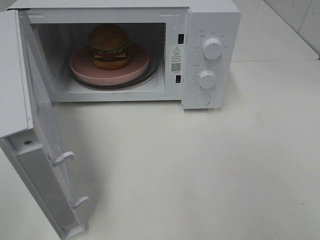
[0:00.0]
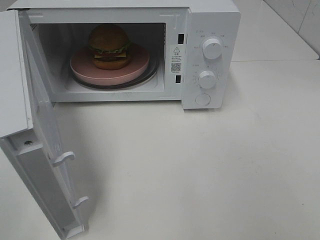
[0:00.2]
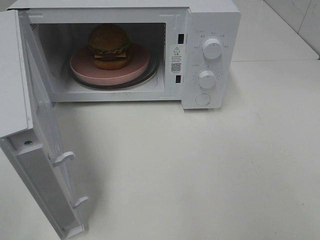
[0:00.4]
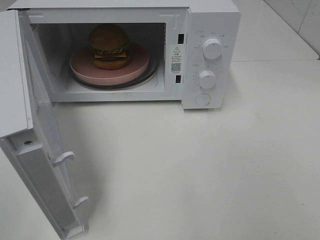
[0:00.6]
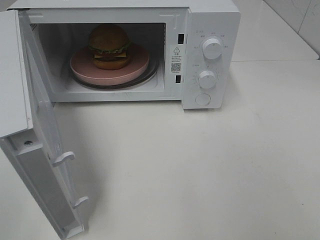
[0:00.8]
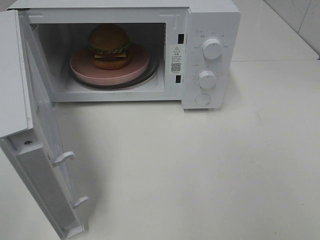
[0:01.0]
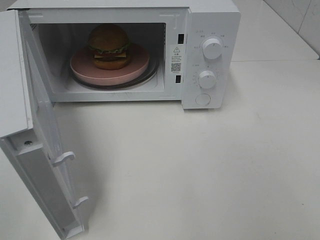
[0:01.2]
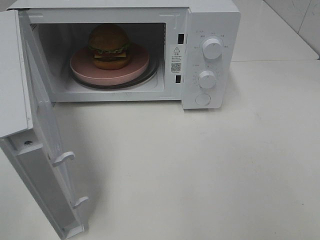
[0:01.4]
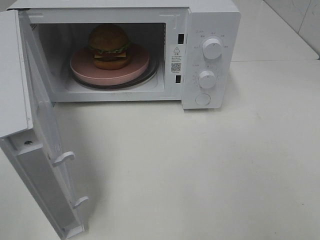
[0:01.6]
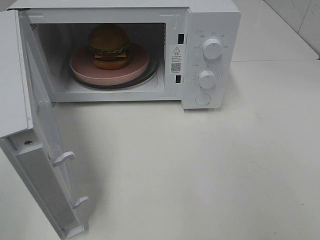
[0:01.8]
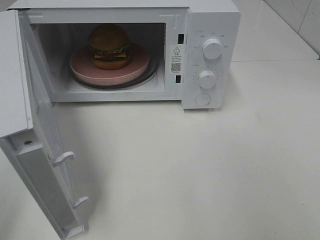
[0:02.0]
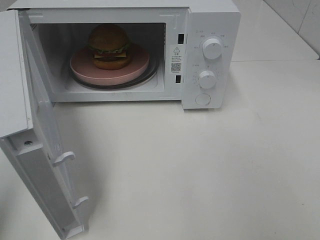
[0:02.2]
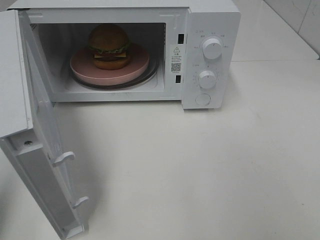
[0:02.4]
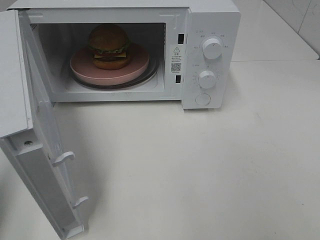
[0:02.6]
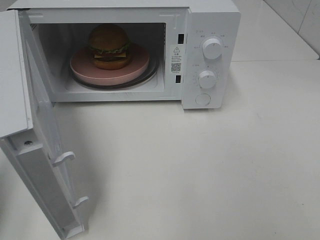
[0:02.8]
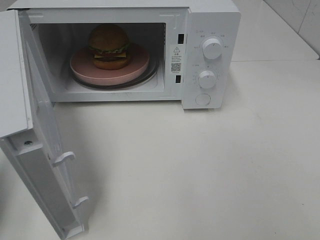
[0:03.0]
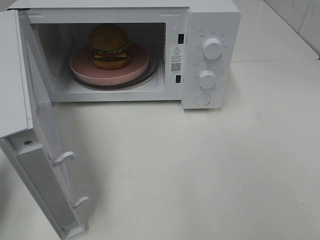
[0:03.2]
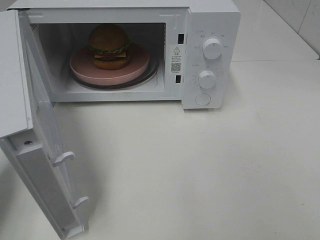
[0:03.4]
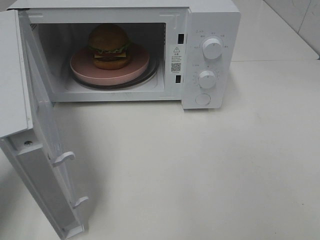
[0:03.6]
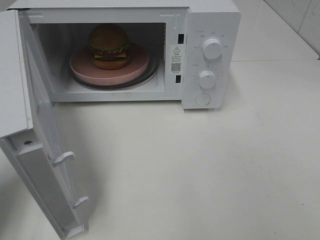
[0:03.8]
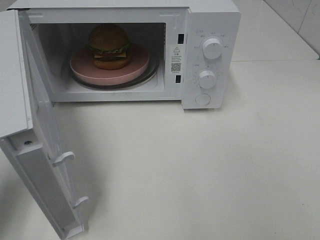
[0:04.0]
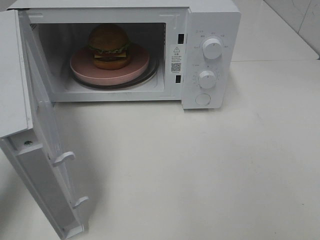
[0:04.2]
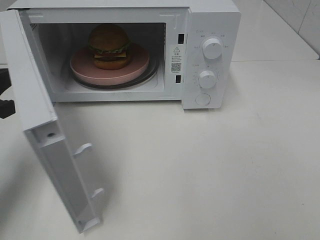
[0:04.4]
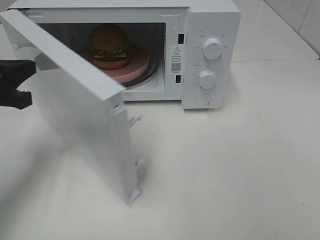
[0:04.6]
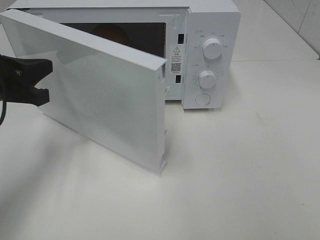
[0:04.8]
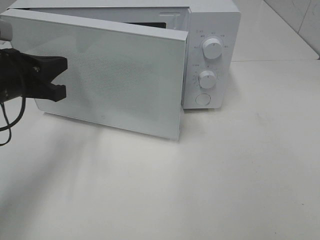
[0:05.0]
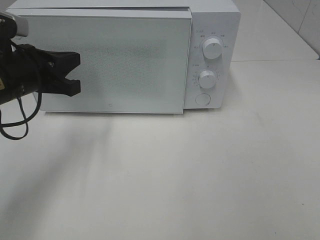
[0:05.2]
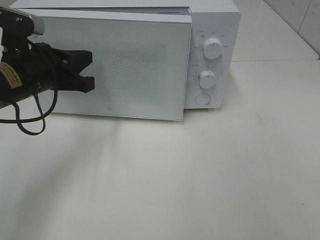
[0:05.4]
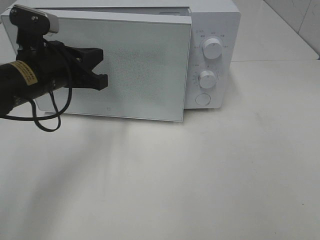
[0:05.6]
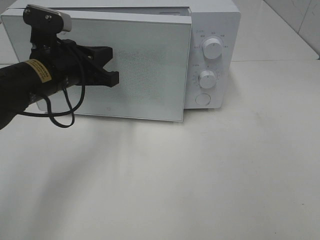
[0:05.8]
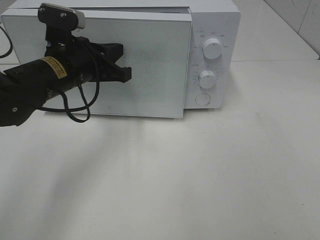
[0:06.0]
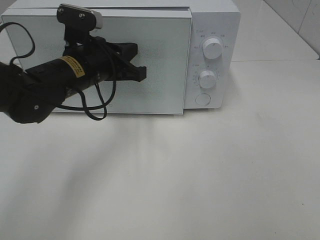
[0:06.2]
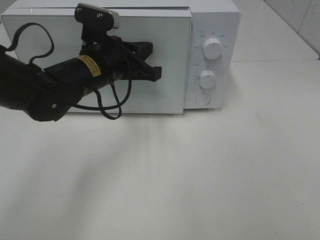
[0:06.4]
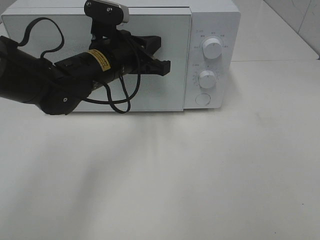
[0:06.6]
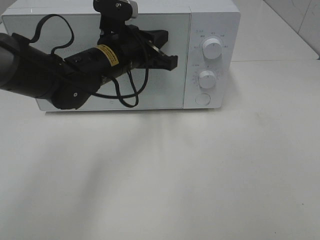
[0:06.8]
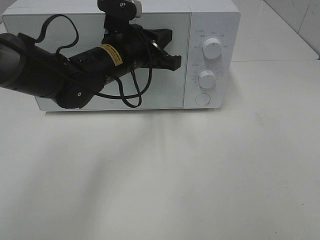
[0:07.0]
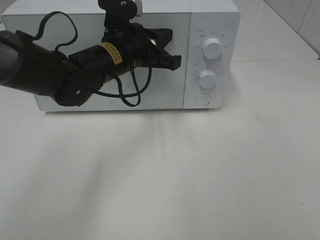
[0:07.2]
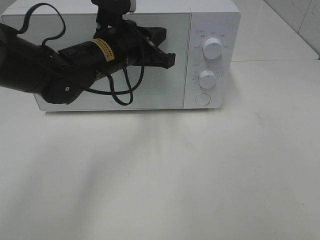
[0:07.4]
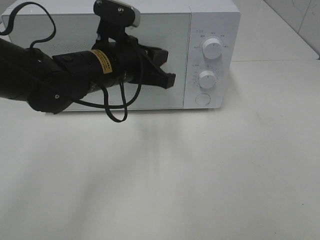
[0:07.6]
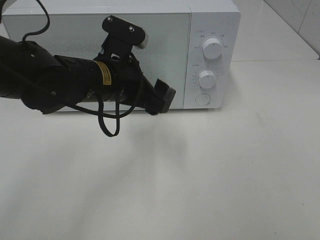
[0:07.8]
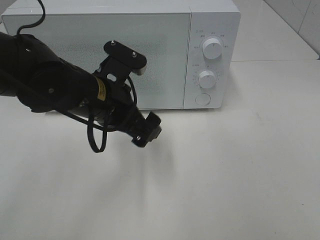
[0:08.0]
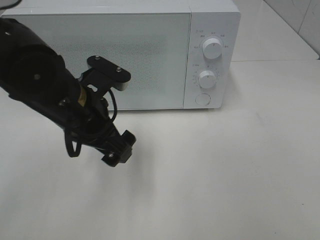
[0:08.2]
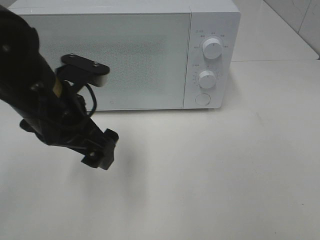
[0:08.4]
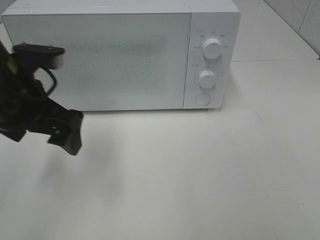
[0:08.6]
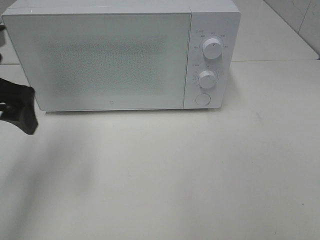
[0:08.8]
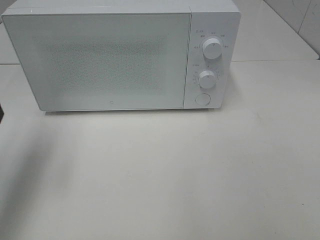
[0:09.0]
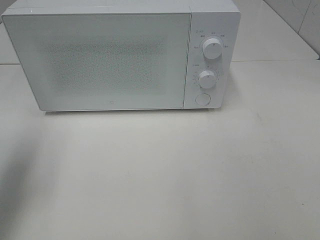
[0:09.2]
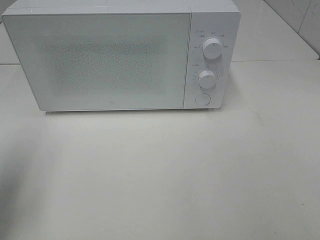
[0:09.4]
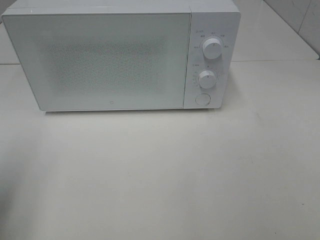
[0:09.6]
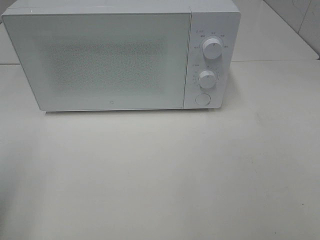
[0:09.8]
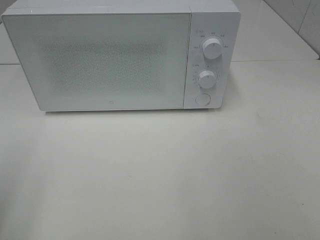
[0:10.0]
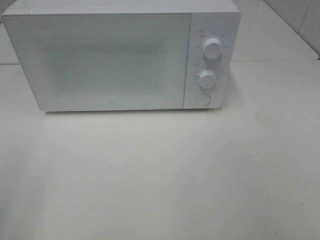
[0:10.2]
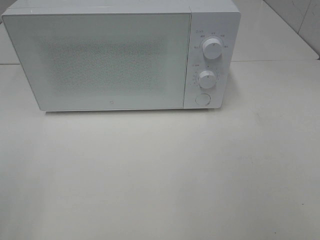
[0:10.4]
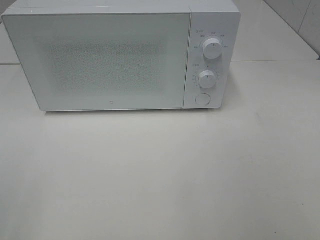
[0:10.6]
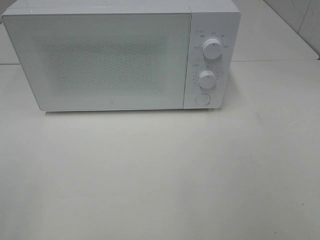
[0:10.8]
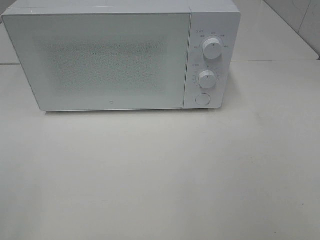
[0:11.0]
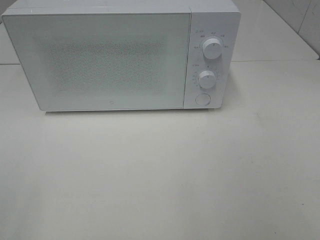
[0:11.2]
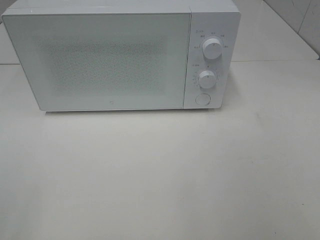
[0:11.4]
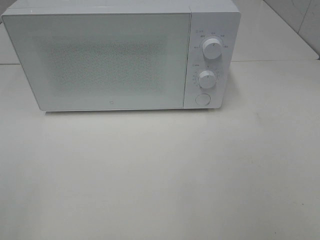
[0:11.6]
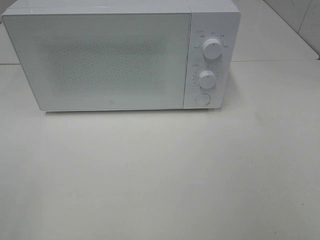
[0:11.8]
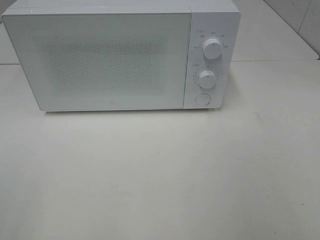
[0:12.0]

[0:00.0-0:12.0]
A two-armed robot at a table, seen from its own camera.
Task of the whole recording: Heat the burger.
Step, 0:00.0 to 0:07.4: Left hand: close the microwave door.
0:01.6 to 0:03.0: The left gripper goes some 15 cm forward and downward, and closes its fingers.
0:03.0 to 0:04.4: The left gripper moves forward, roughly 10 cm.
0:04.4 to 0:06.0: The left gripper shifts approximately 20 cm to the right and forward.
0:06.0 to 0:07.6: The left gripper heads to the right, covering approximately 5 cm.
0:07.6 to 0:09.0: The left gripper heads to the left, covering about 20 cm, and opens up.
0:09.0 to 0:10.4: The left gripper is displaced backward by roughly 20 cm.

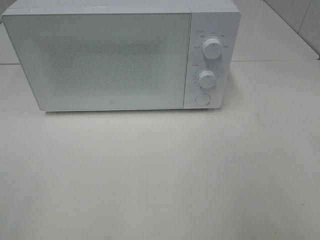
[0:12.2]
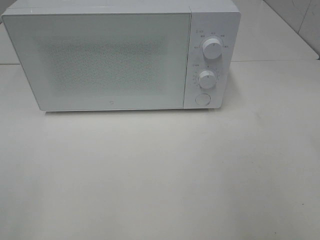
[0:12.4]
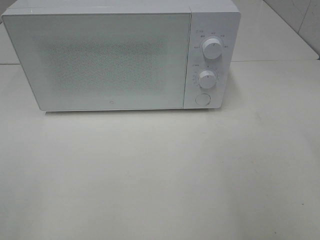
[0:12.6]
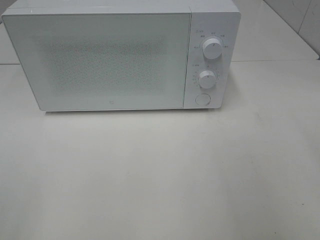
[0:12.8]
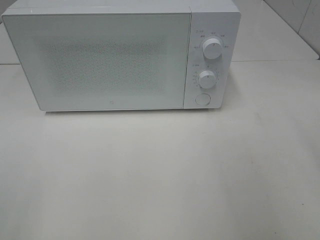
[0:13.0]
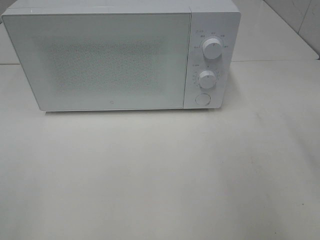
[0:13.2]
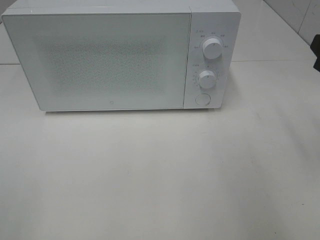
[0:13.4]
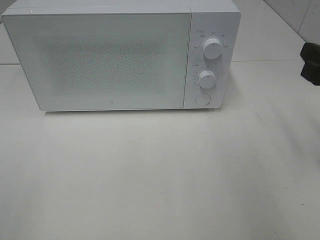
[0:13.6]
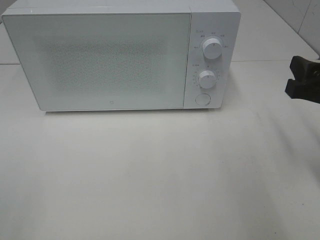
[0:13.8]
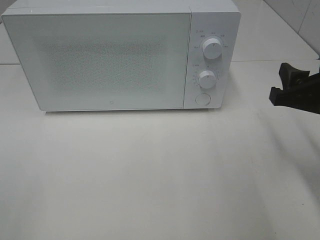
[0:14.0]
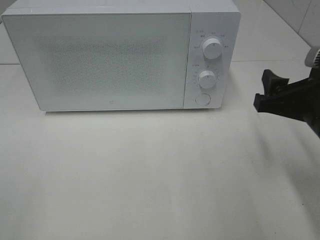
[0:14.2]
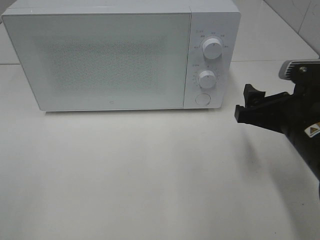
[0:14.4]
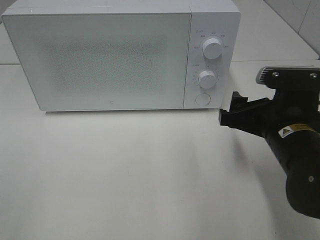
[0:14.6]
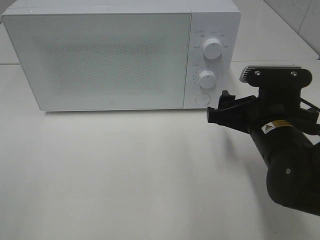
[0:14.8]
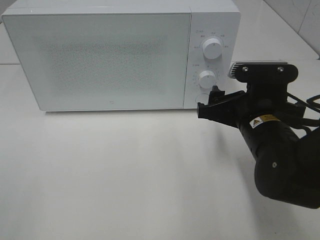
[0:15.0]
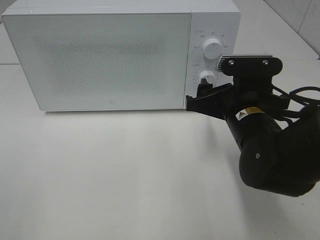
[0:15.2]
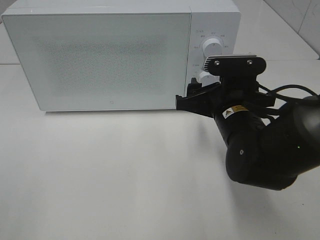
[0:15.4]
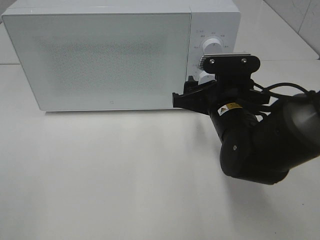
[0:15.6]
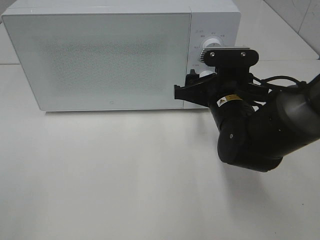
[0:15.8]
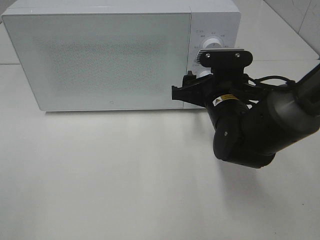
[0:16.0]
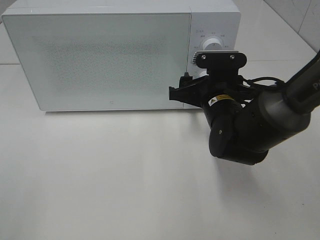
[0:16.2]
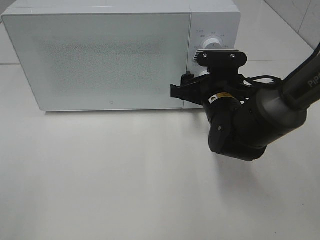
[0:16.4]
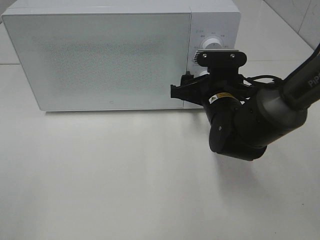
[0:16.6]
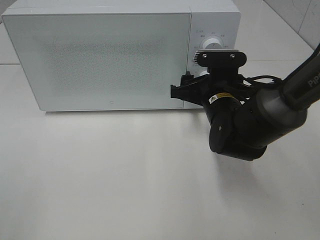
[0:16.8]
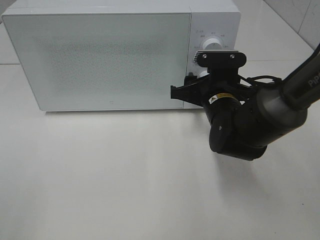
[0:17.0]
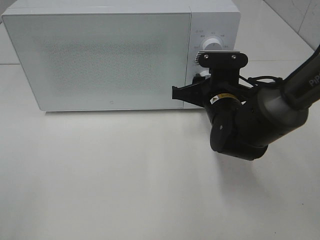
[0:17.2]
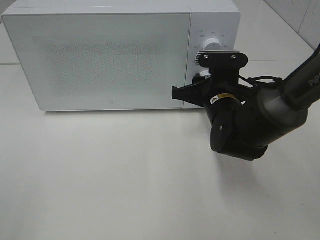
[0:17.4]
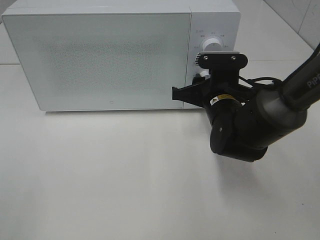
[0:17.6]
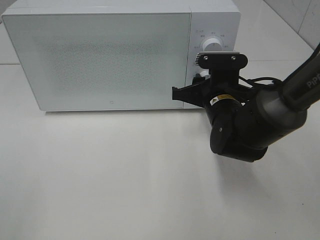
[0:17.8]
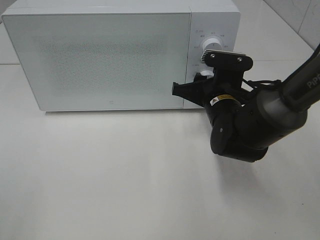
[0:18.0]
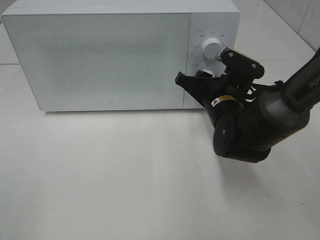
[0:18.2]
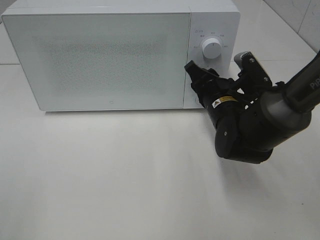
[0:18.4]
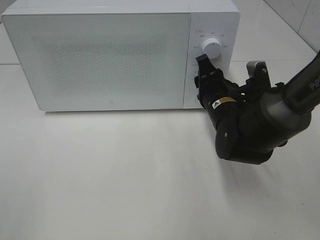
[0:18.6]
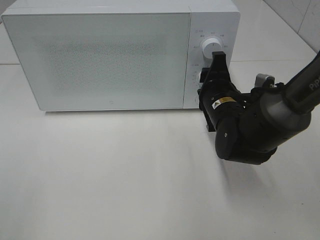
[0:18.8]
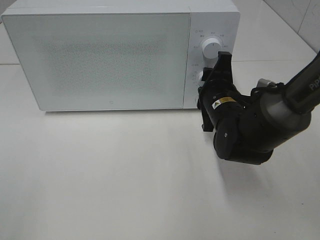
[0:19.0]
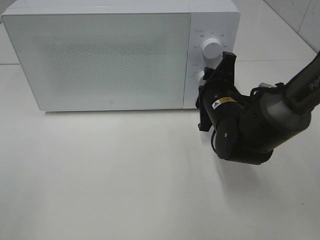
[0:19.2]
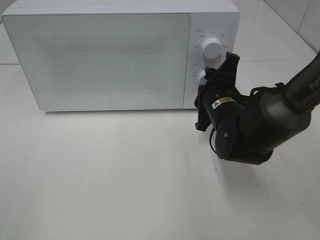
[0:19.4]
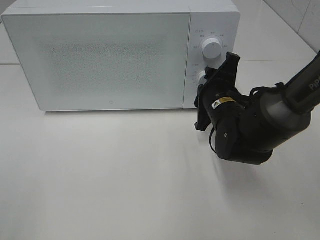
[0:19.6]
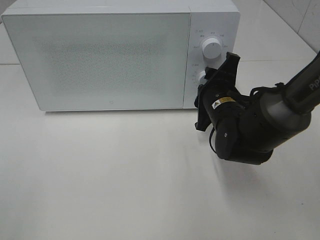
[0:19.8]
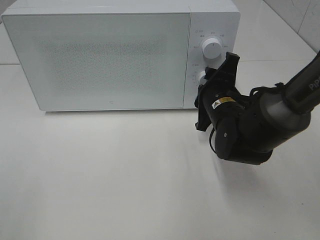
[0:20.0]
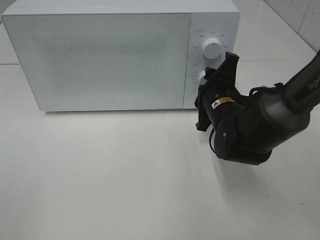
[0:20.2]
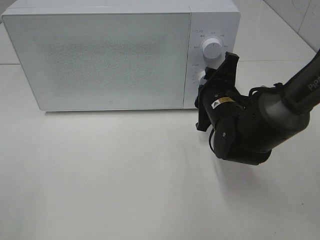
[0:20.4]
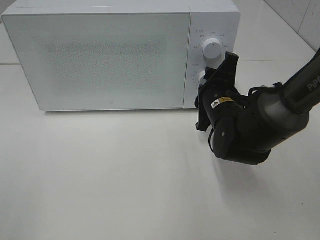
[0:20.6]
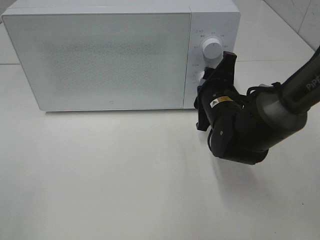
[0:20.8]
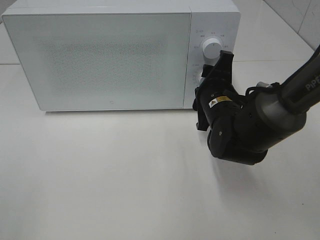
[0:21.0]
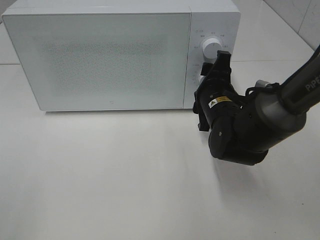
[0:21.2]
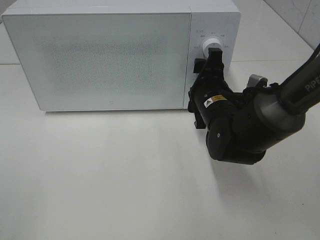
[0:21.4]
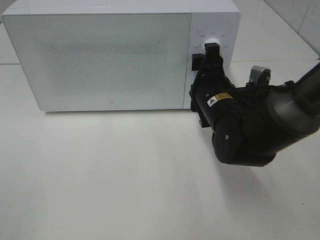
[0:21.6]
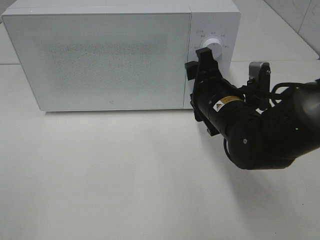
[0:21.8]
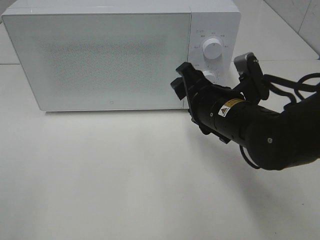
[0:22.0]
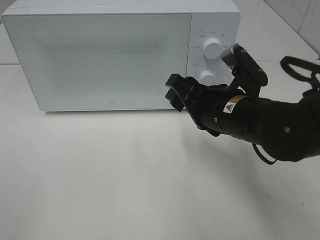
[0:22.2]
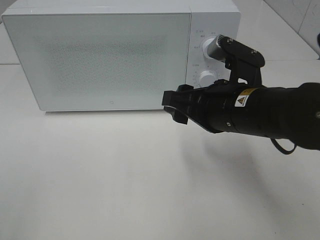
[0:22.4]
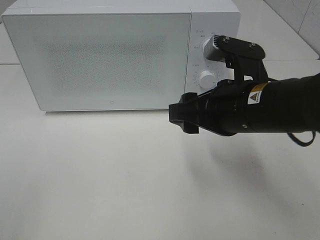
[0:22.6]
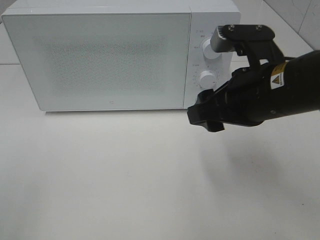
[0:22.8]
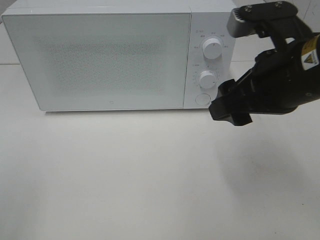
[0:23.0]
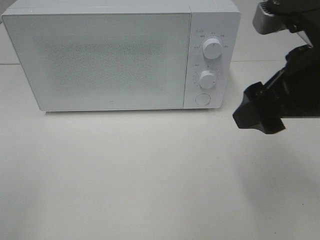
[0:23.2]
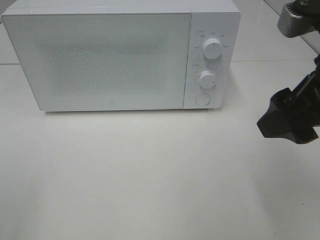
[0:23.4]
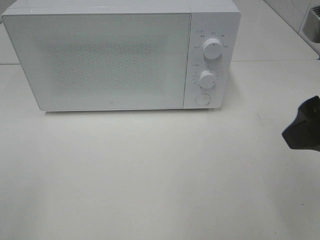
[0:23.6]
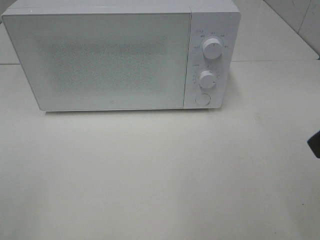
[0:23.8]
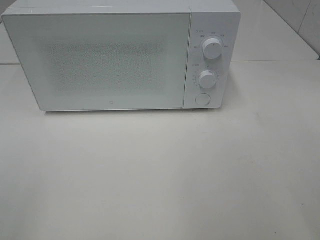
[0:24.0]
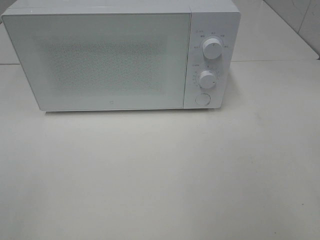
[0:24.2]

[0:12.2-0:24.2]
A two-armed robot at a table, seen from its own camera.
Task of the whole recording: Heat the burger.
Step, 0:12.2 to 0:21.0: Right hand: twist timer button.
0:12.2 to 0:13.8: The right gripper moves forward and downward, approximately 20 cm.
0:13.8 to 0:15.2: The right gripper shifts about 15 cm to the left and downward.
0:15.2 to 0:16.6: The right gripper is displaced forward by roughly 5 cm.
0:16.6 to 0:18.2: The right gripper closes.
0:19.8 to 0:21.2: There are only small adjustments of the grippers.
0:21.2 to 0:22.6: The right gripper is displaced backward and upward by some 15 cm.
0:22.6 to 0:24.2: The right gripper shifts some 20 cm to the right, backward and upward.
